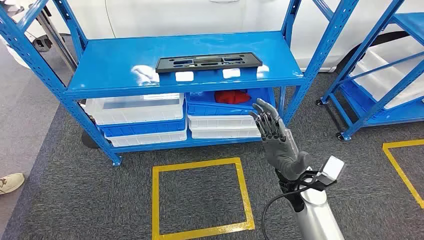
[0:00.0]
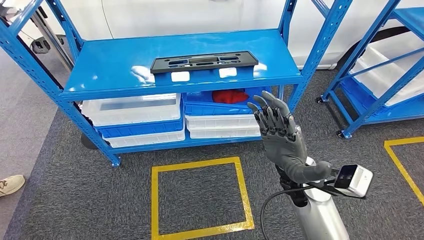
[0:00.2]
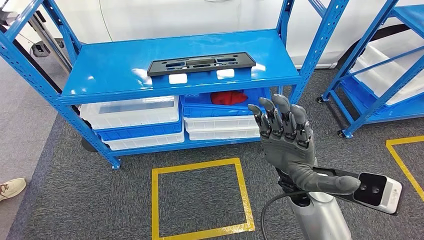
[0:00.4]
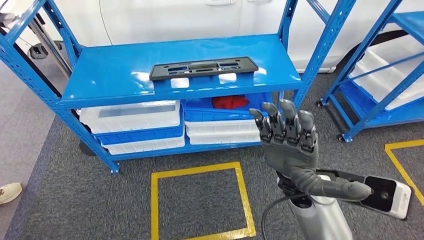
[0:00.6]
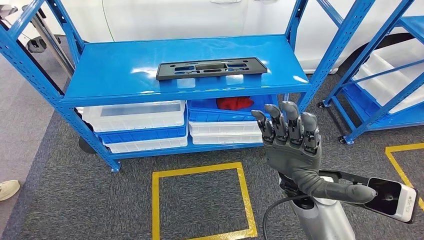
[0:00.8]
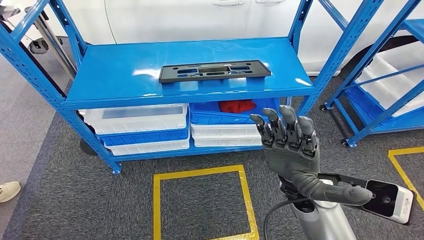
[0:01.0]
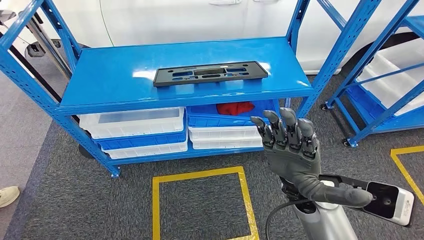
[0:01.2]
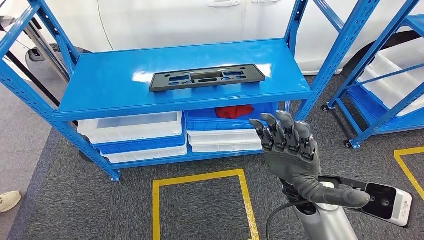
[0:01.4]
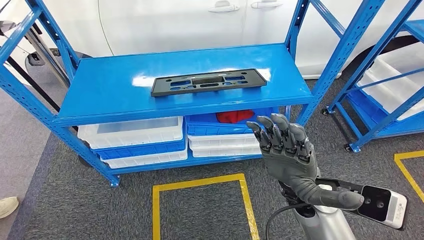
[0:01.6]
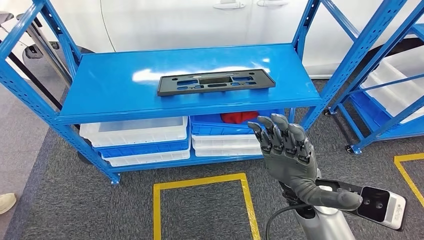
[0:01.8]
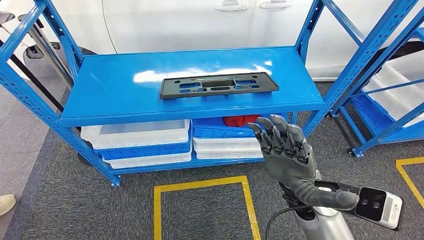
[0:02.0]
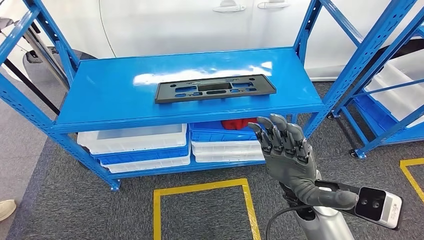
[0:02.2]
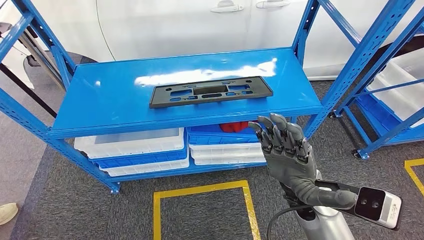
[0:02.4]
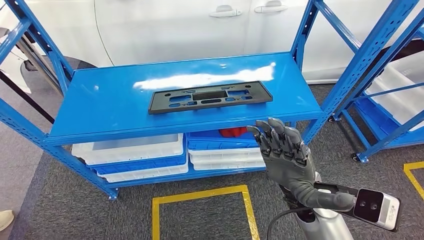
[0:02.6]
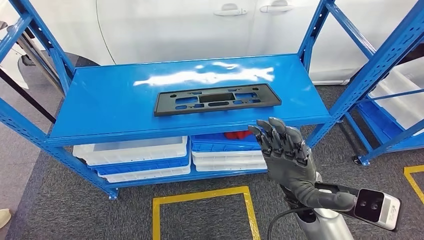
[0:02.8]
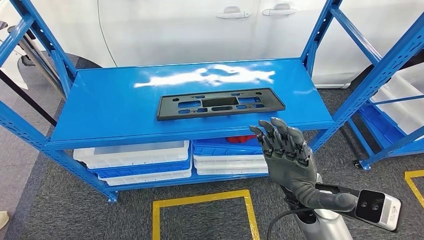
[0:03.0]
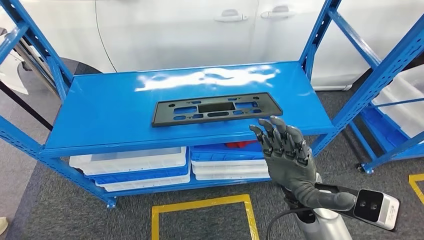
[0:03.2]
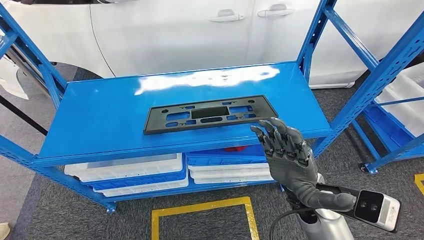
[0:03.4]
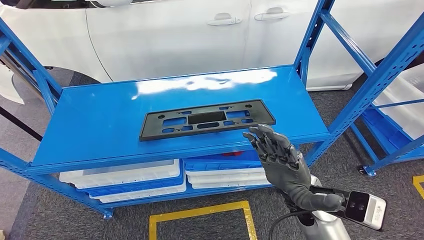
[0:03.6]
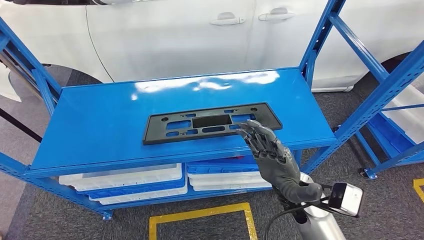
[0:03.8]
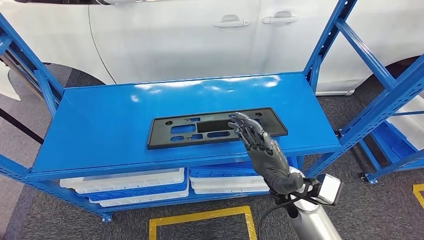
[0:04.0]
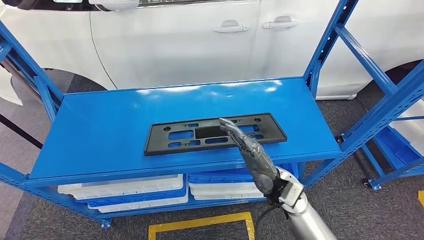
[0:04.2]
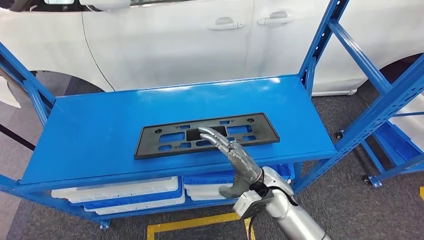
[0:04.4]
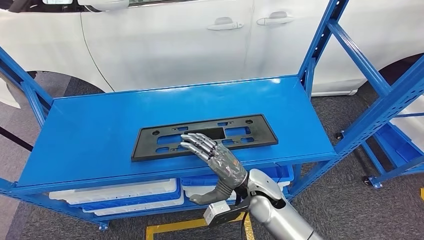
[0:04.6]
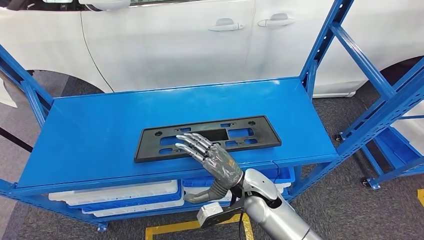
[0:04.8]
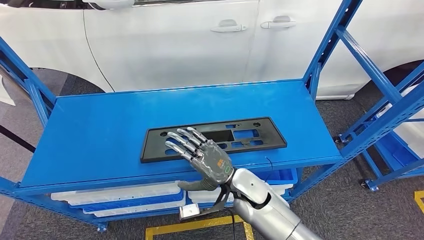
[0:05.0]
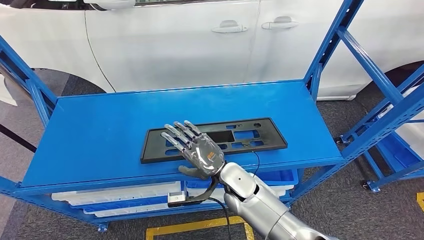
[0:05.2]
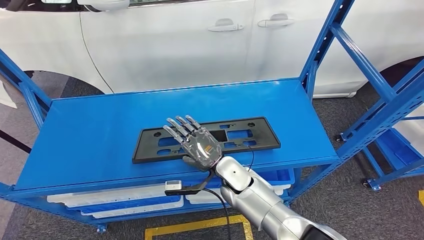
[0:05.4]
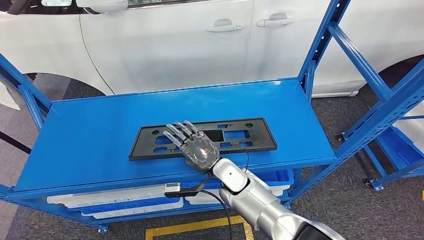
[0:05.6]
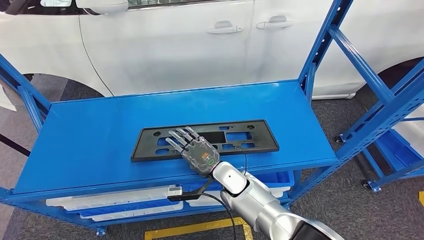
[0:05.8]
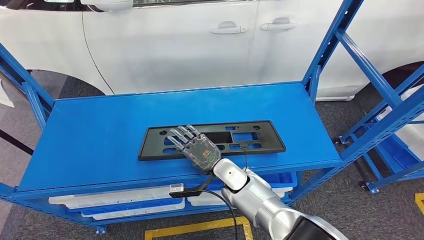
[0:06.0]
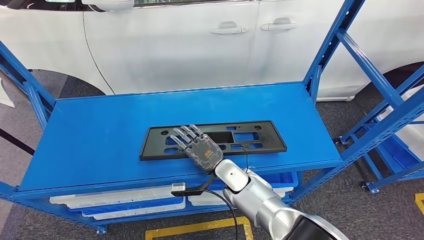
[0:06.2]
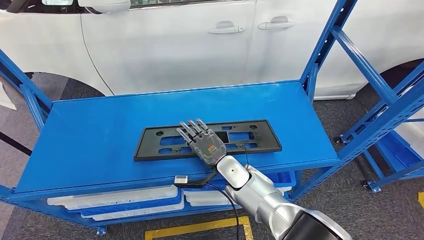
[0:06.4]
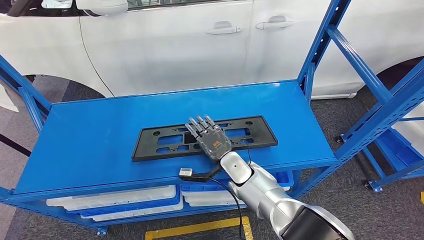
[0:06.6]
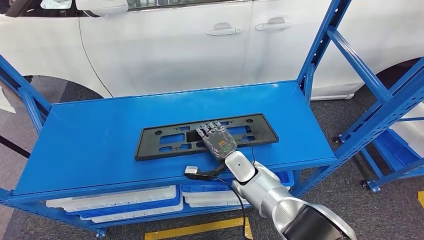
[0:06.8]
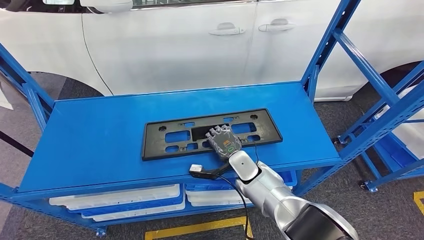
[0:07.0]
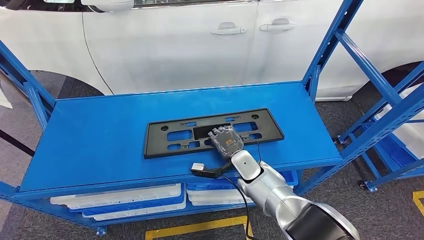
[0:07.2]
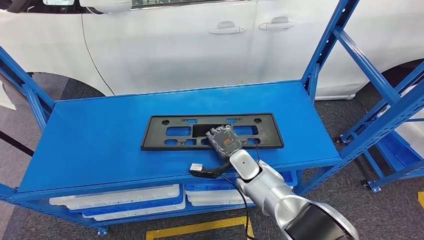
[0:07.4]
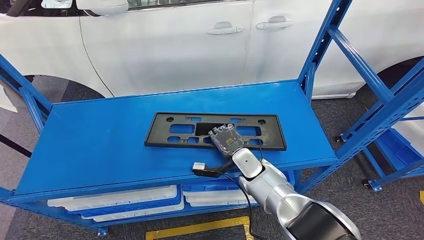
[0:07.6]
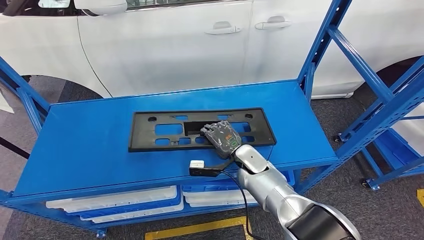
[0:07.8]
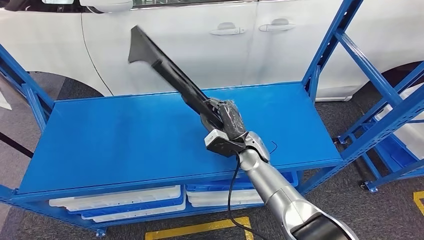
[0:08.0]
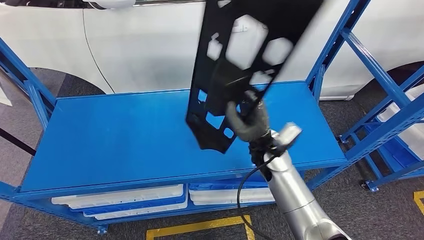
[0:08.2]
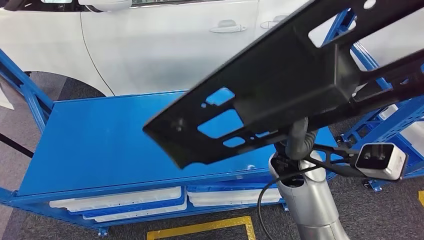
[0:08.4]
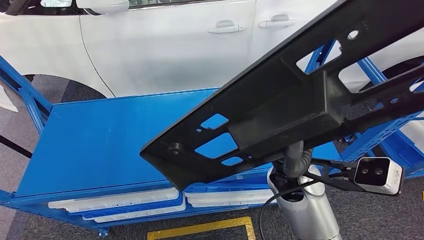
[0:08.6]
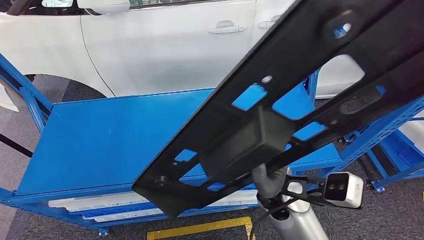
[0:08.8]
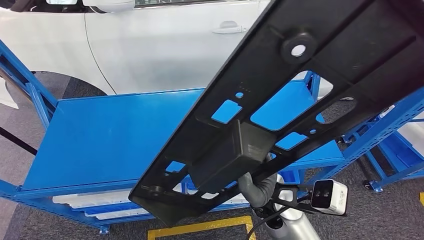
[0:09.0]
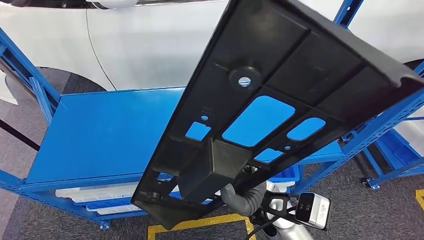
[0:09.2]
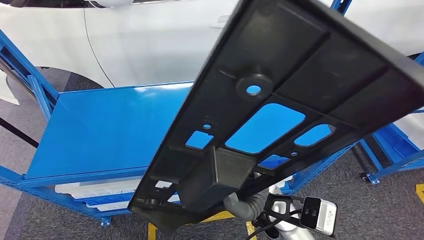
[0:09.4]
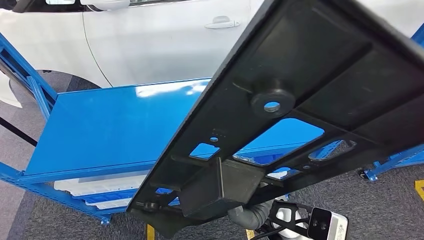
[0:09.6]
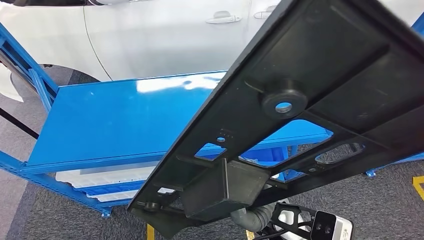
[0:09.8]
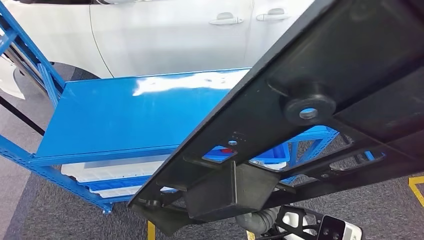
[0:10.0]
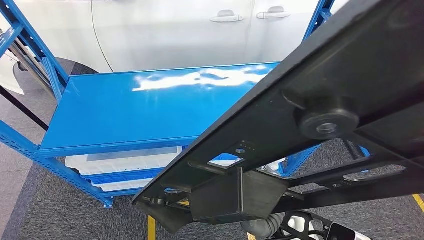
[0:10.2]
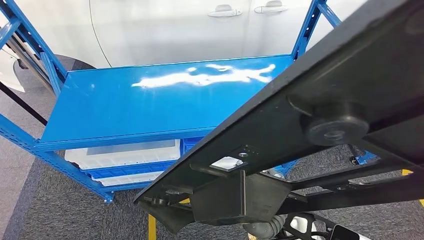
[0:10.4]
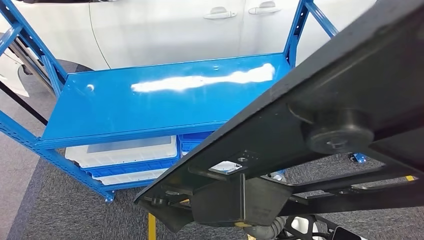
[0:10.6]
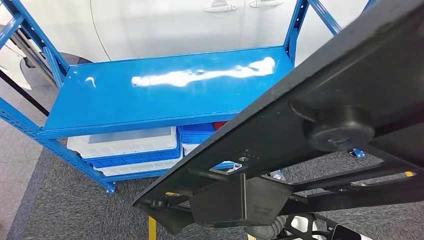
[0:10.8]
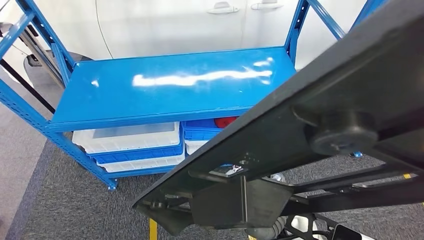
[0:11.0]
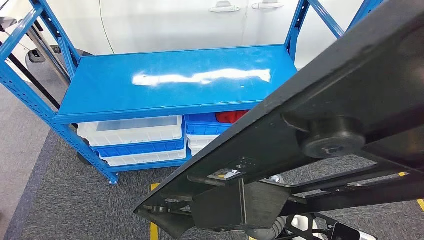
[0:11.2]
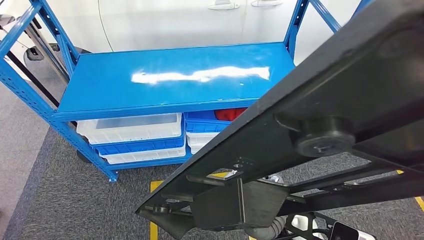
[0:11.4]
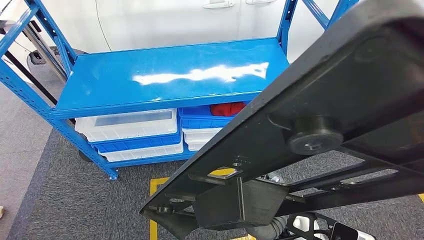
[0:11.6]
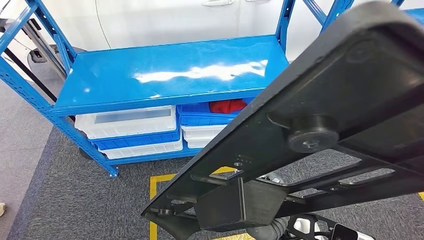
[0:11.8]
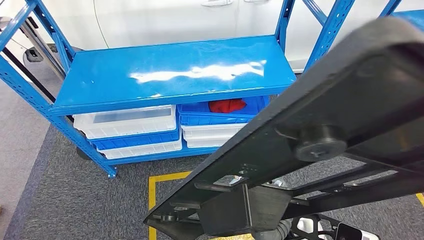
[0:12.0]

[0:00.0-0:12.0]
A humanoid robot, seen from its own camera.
Step, 0:00.0 to 0:09.6: Pick up the large material from the shelf.

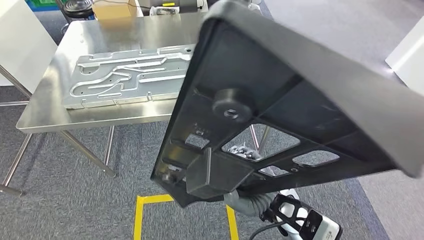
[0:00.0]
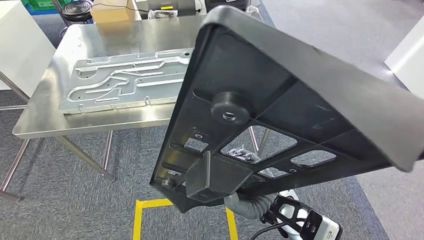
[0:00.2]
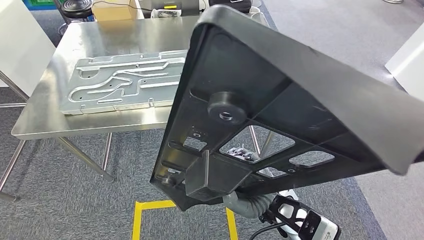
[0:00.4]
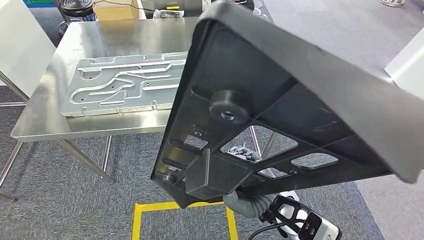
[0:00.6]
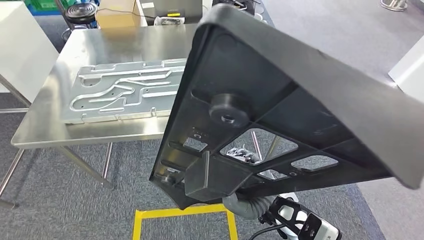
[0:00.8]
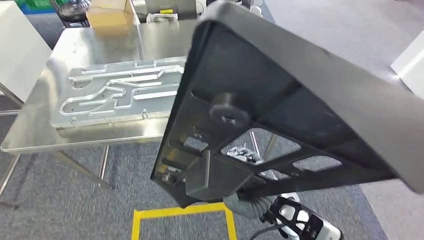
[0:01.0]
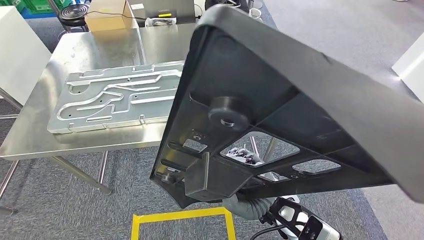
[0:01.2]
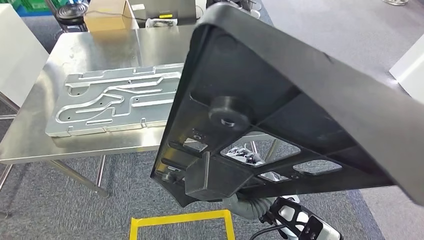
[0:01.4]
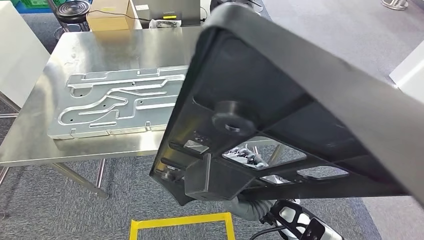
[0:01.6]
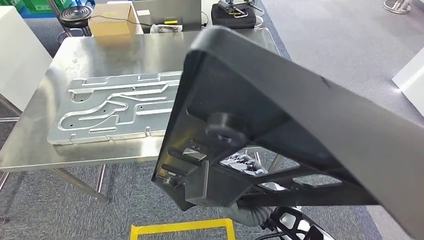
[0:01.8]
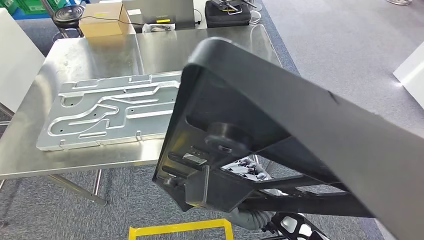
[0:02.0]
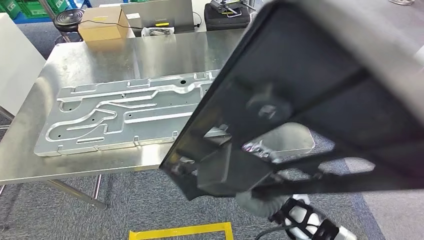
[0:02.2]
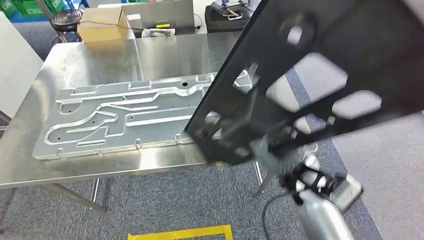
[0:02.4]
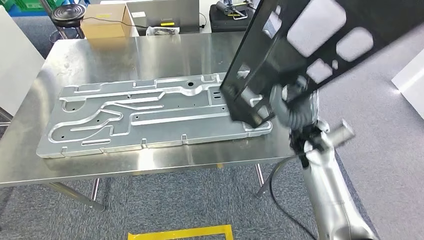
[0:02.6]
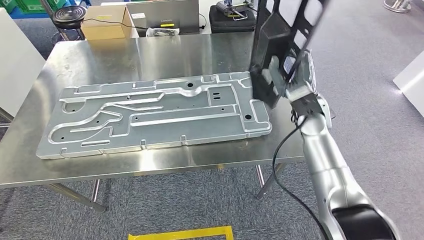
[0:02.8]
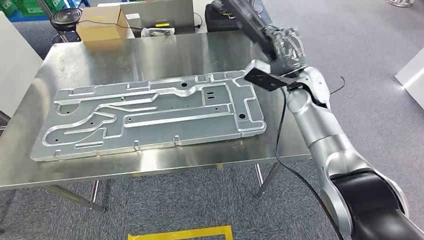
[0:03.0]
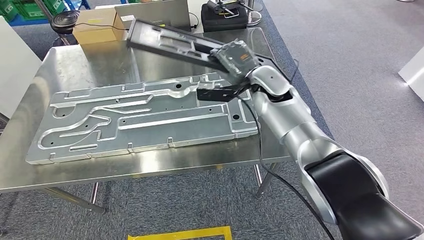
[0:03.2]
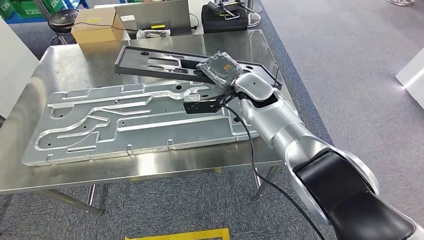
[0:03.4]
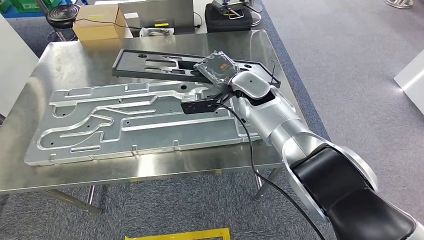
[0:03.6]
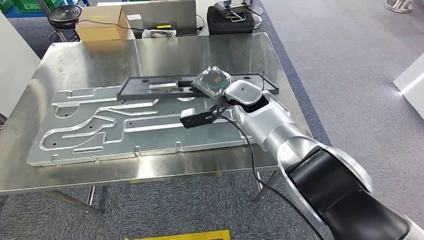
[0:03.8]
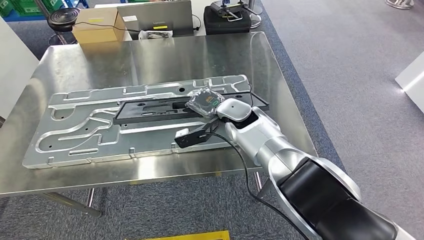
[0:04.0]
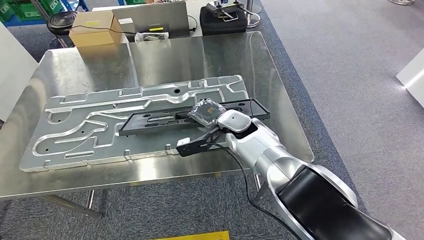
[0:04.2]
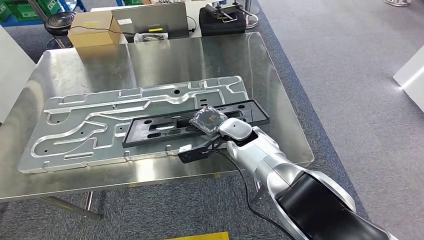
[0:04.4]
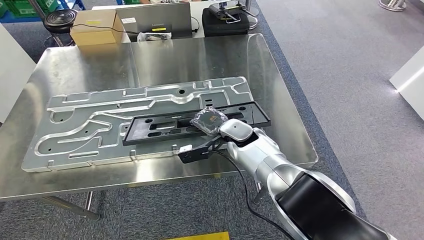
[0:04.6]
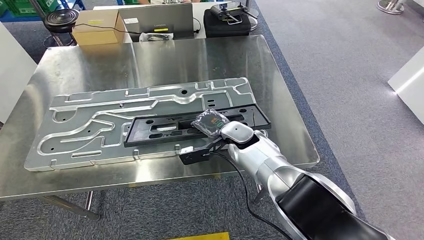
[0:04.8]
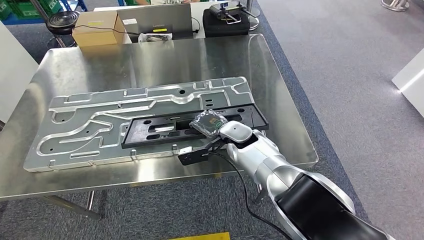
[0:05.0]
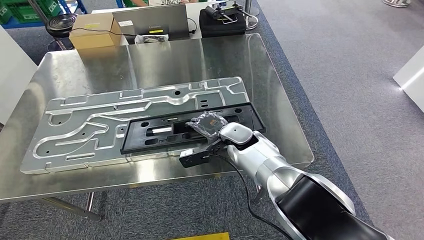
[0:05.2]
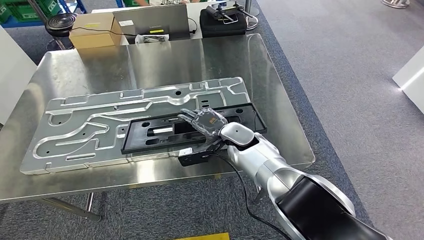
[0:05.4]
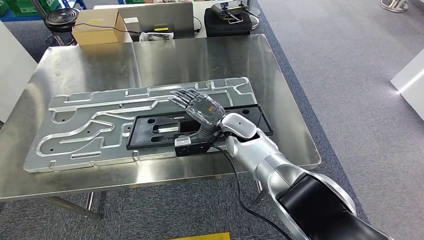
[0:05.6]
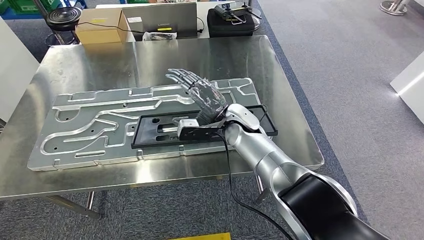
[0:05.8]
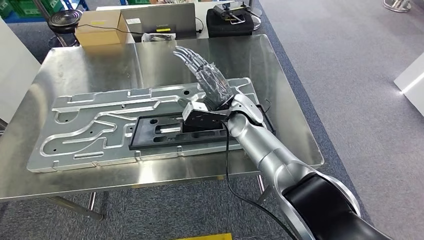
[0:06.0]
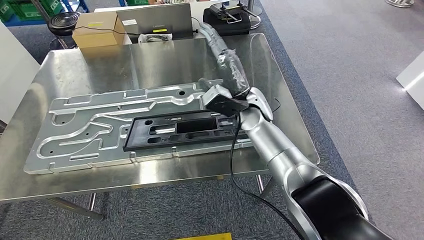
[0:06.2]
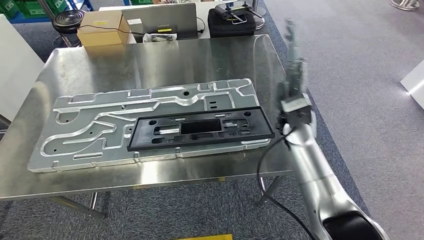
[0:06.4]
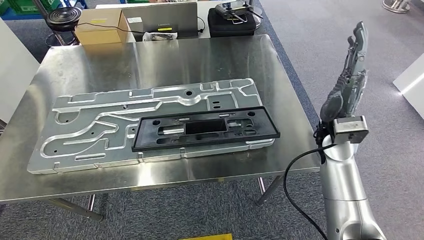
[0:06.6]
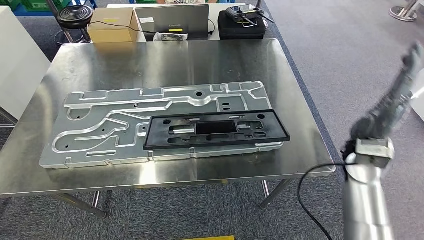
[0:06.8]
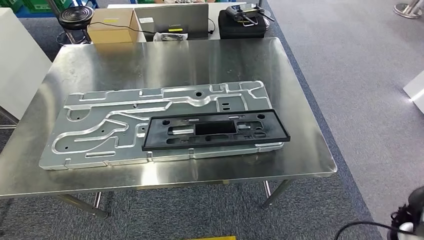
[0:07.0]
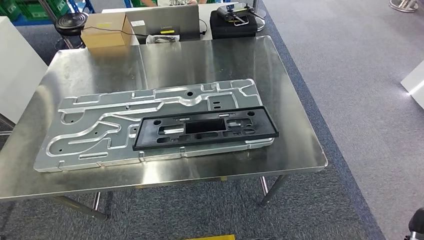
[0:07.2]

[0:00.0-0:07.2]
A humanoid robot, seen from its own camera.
Step, 0:00.0 to 0:03.8: Move the large material to the workbench.
Step, 0:04.0 to 0:07.0: Insert the large material into the corresponding slot on the workbench.
